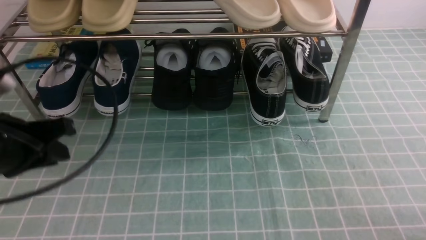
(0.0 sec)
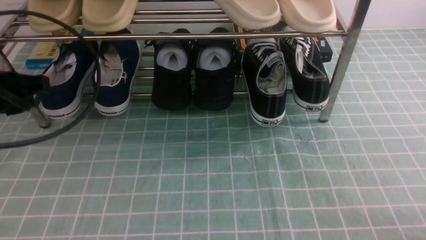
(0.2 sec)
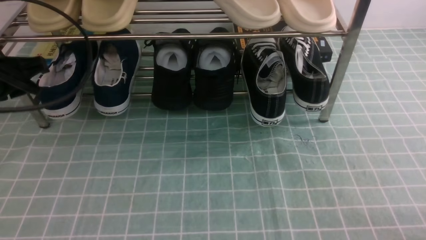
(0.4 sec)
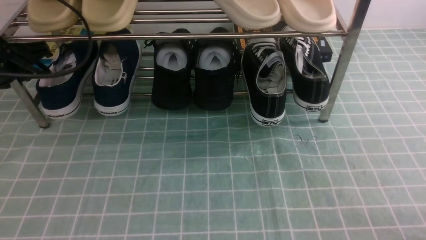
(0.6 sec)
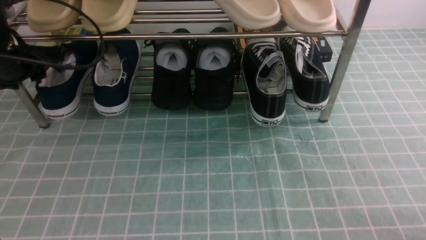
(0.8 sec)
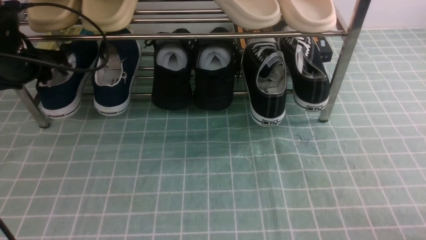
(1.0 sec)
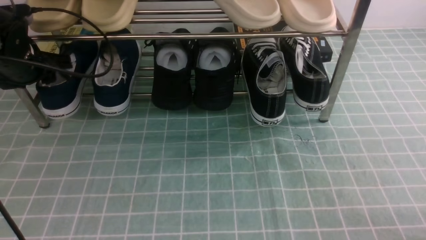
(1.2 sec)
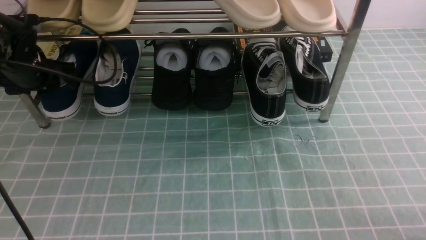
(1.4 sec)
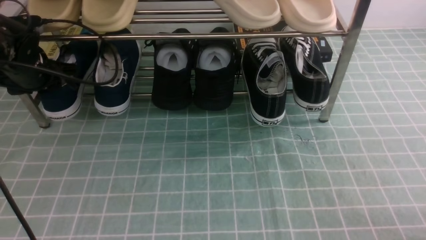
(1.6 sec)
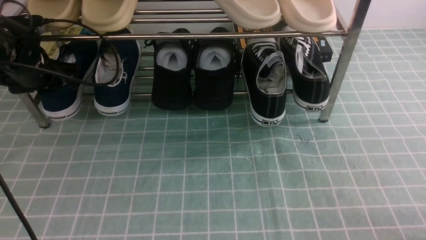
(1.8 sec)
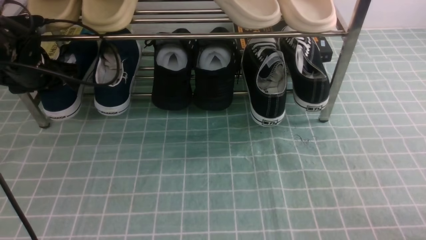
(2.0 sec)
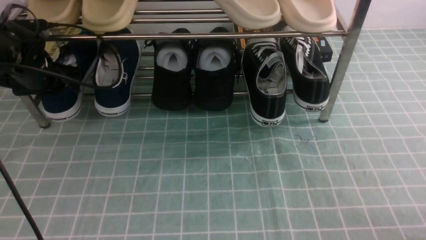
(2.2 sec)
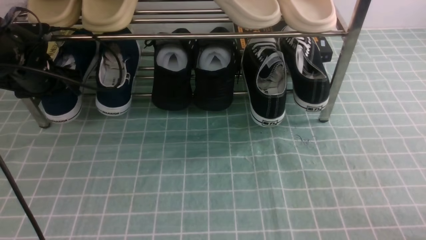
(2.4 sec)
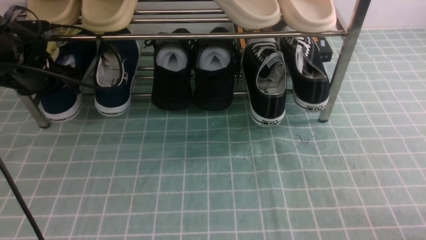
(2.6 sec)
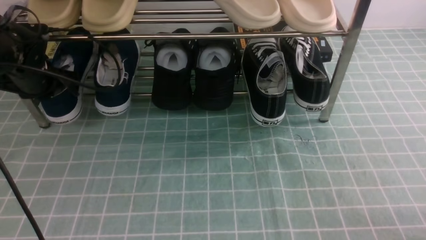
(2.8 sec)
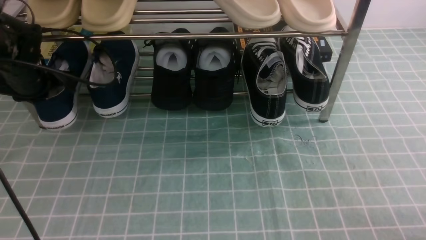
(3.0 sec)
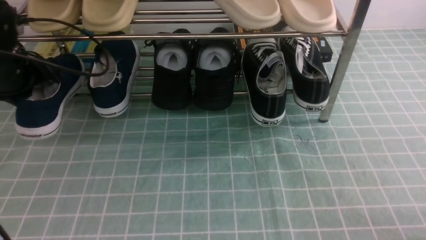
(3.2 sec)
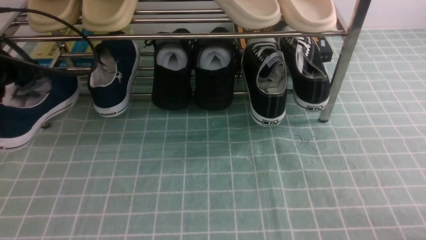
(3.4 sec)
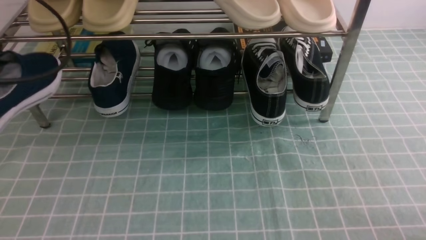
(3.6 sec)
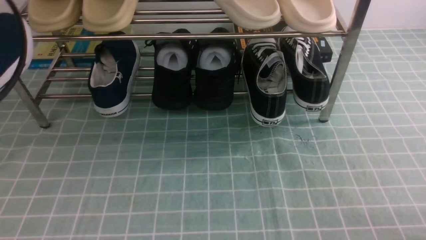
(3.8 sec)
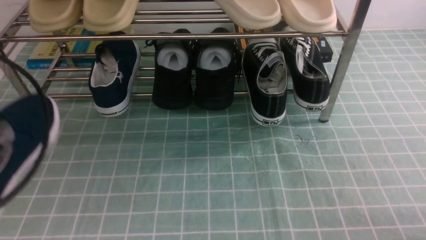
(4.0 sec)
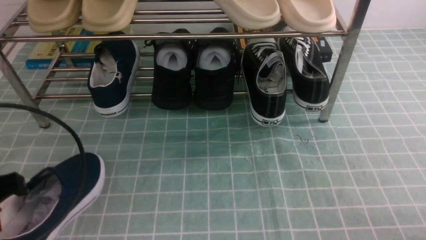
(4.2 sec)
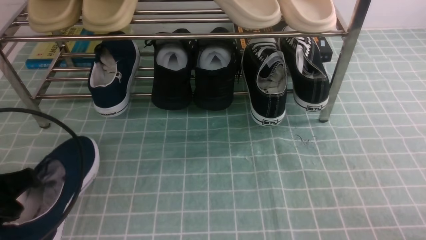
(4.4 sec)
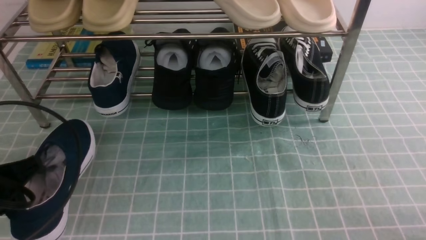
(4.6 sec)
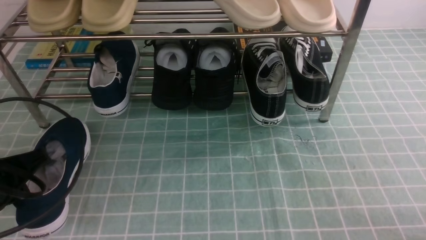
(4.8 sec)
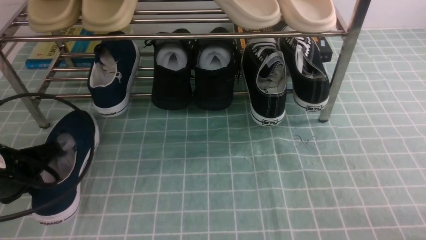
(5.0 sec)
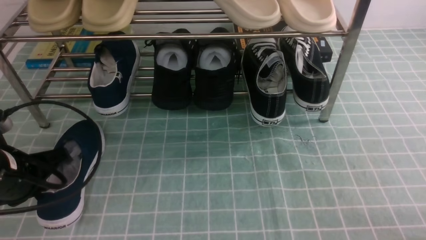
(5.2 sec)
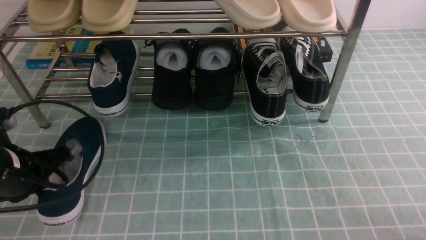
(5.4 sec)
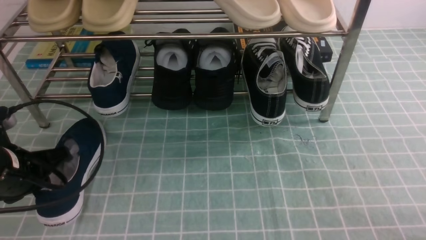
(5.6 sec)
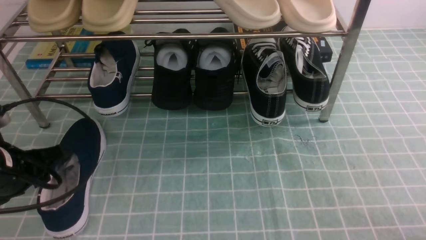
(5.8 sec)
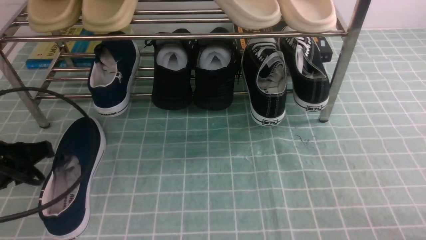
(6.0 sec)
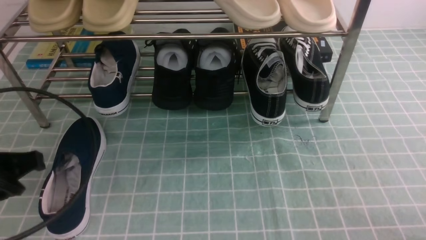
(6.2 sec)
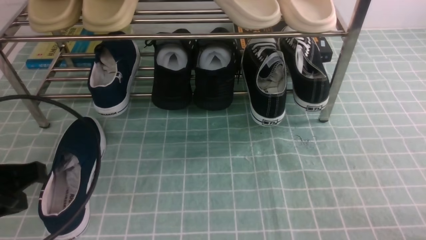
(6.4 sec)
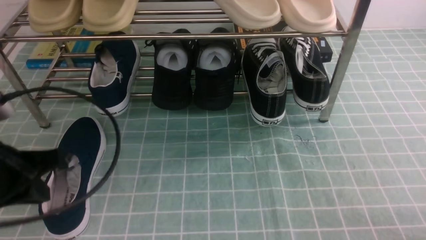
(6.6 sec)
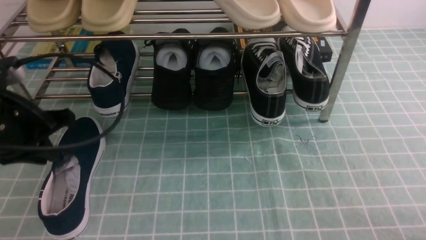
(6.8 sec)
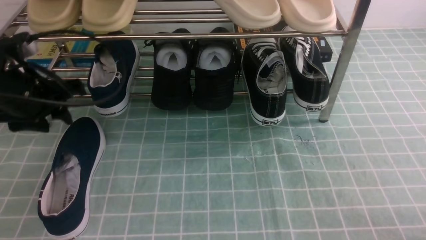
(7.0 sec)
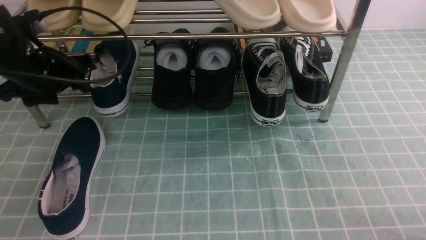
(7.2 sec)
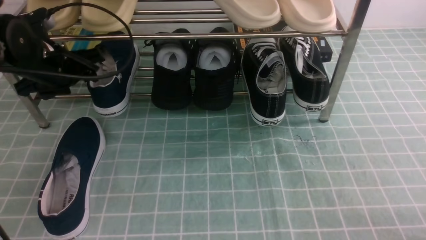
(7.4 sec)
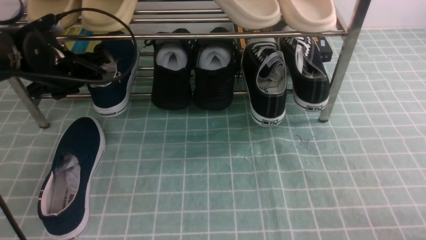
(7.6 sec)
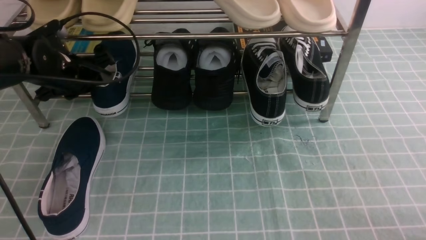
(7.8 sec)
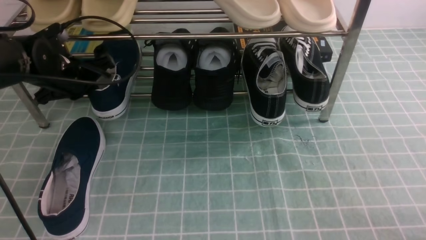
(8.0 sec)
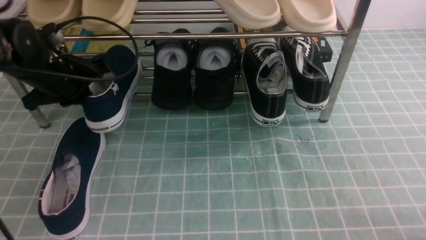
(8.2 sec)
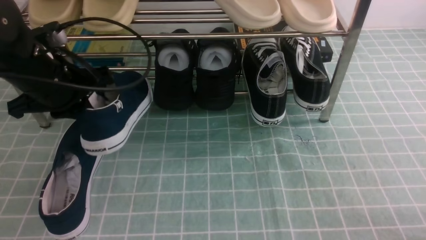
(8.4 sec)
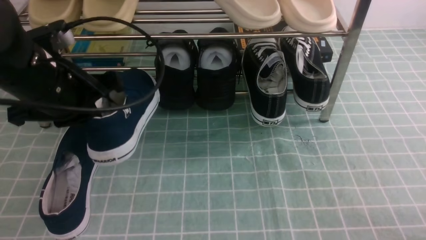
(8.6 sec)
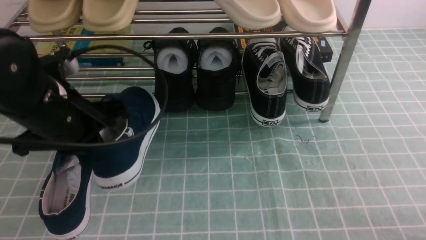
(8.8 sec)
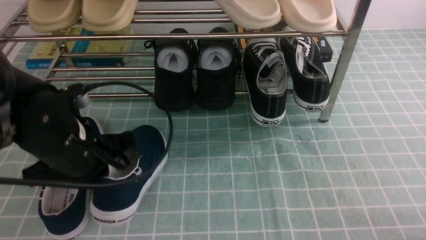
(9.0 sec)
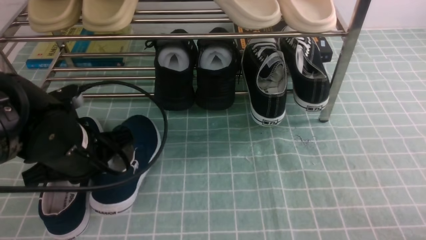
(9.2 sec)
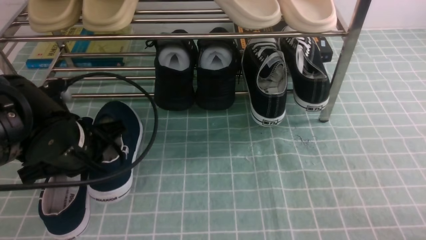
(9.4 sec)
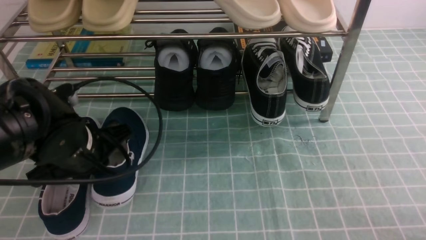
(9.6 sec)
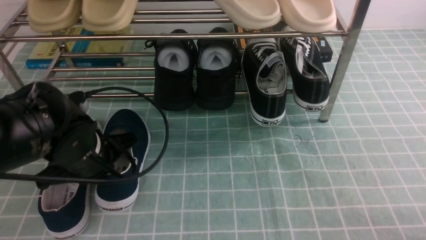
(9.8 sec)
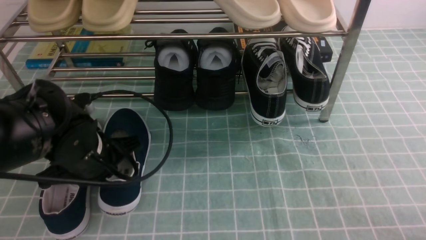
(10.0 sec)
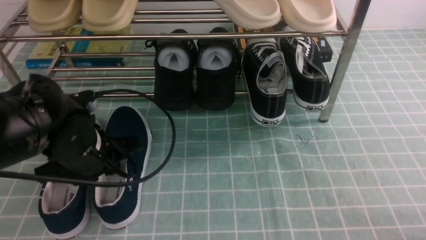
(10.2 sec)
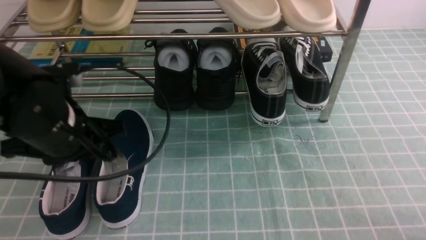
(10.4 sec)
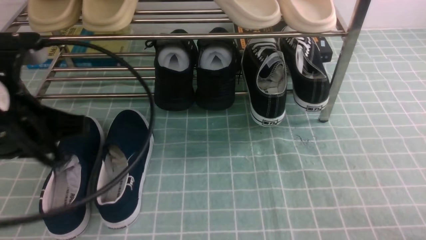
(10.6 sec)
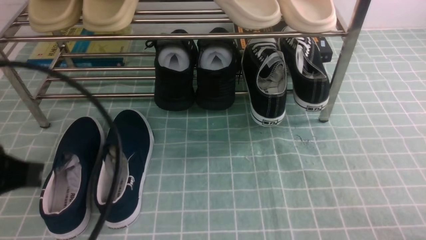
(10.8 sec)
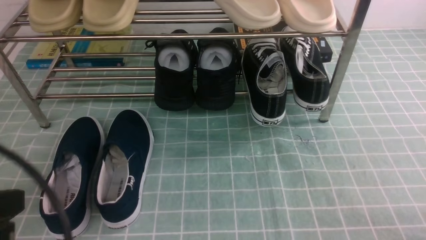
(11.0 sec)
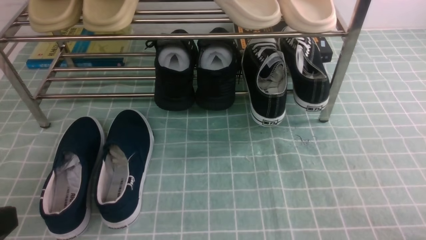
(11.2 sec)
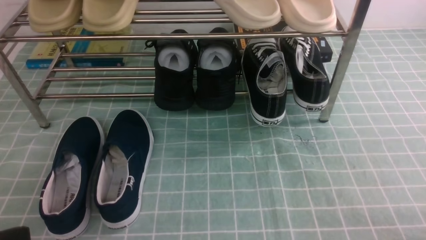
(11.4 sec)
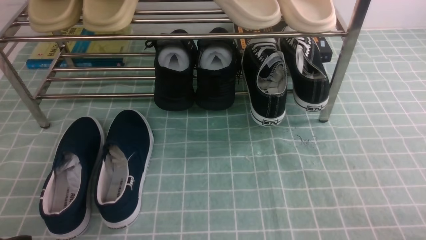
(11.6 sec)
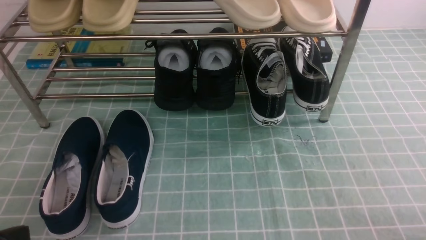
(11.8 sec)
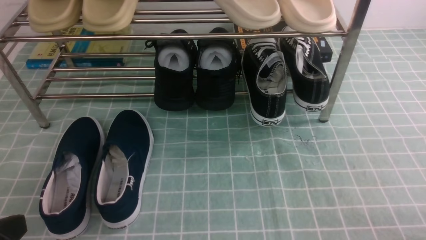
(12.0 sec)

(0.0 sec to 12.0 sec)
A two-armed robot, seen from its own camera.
Step, 1.4 sec - 6.2 sec: Use your left arm to remove the clamped shoe from the shoe rack and put it down.
Step, 6.4 sec - 7.8 sec: use the left arm to clamp a shoe on the left side of the shoe rack.
Step, 8.0 sec - 10.4 sec: Use your left arm to remove the clamped shoe from the shoe rack and put it down.
0.0 sec - 1.6 sec: The left gripper shifts about 20 cm forward, and opens up.
1.6 sec - 3.0 sec: The left gripper closes up.
3.0 sec - 4.4 sec: The left gripper heads backward, covering some 25 cm.
4.4 sec - 6.0 sec: The left gripper opens.
6.0 sec - 7.6 sec: The left gripper moves forward, about 20 cm, and closes, then opens again.
7.6 sec - 9.0 sec: The left gripper is displaced backward and to the right by some 15 cm, and closes up.
9.0 sec - 10.4 sec: The grippers stay close to where they were, moving slightly.
10.4 sec - 12.0 sec: The left gripper travels backward by about 20 cm.

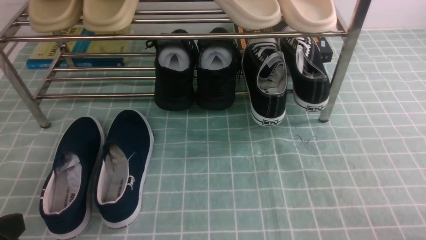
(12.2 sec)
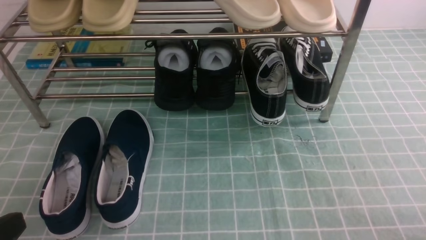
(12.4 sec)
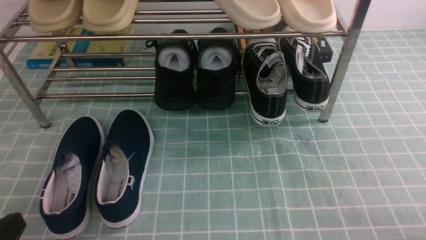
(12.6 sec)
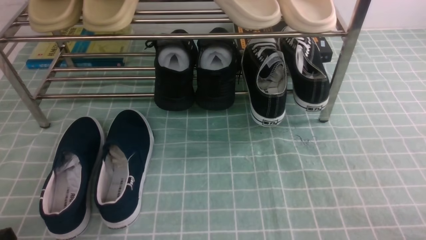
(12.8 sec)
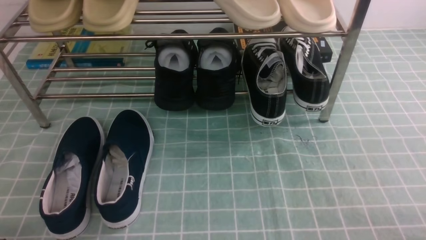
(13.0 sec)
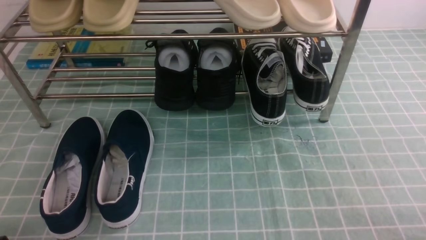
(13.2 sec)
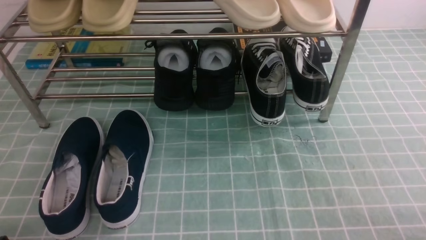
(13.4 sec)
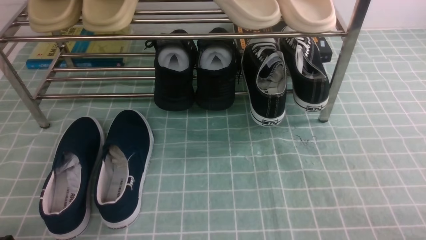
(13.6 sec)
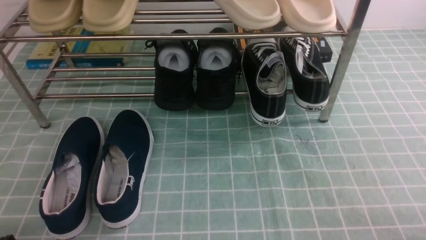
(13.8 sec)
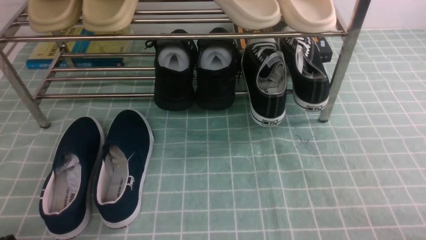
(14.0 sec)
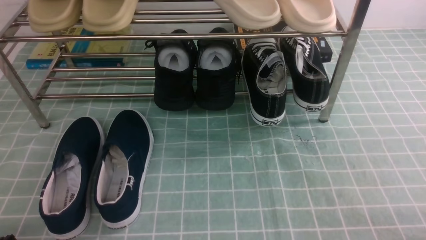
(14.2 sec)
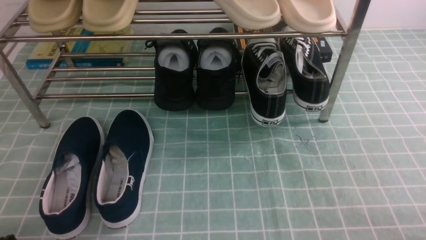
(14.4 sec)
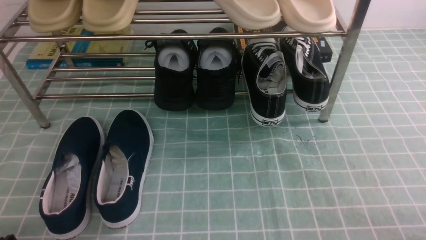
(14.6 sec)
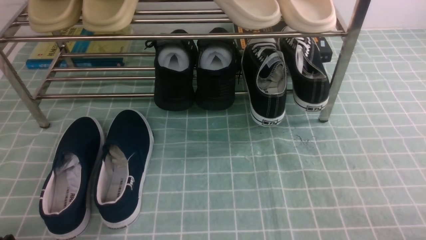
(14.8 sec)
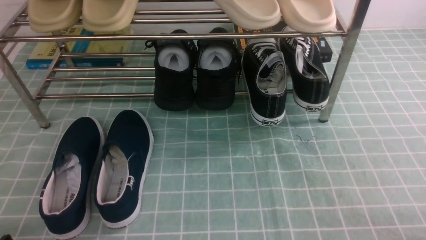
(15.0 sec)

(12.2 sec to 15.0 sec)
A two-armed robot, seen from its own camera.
13.6 sec - 15.0 sec: Neither gripper changes place.
